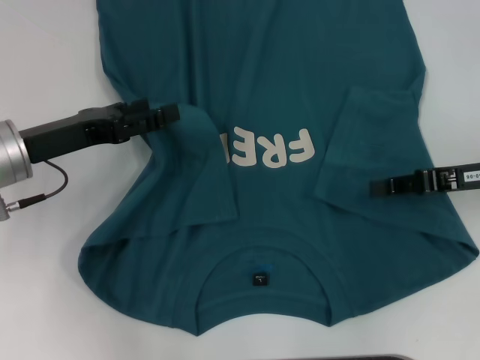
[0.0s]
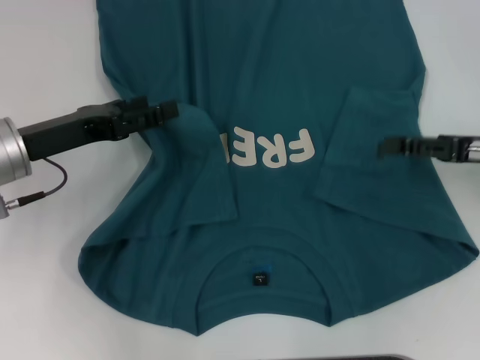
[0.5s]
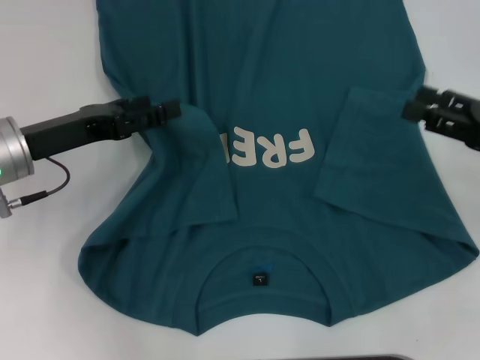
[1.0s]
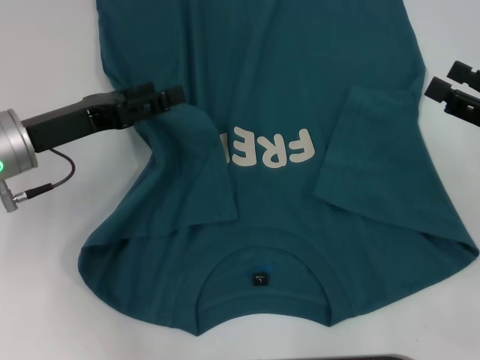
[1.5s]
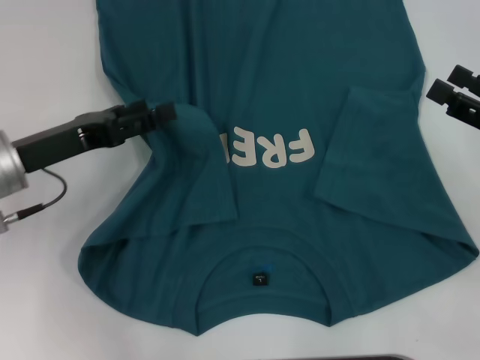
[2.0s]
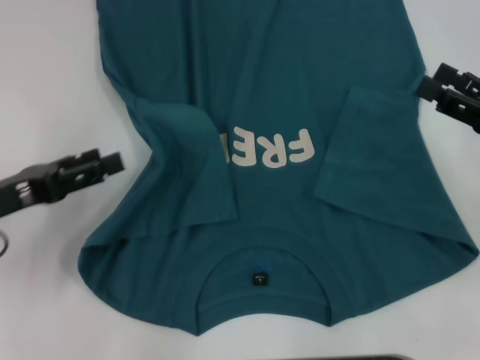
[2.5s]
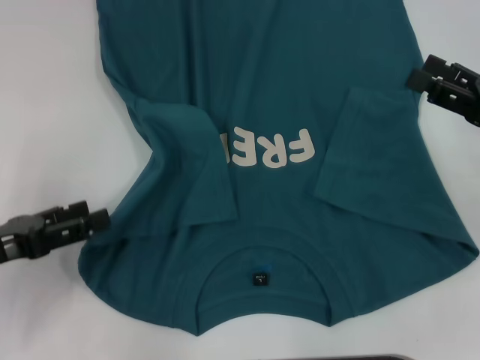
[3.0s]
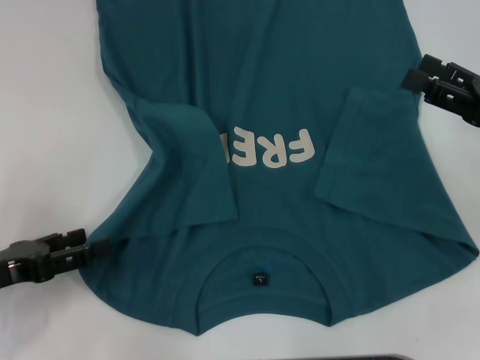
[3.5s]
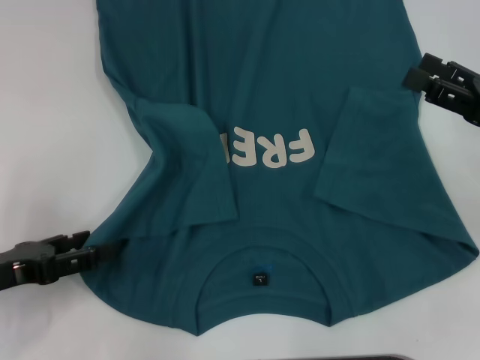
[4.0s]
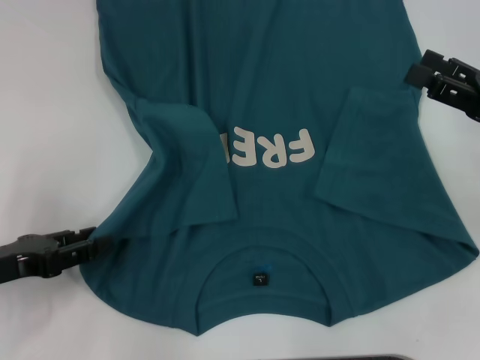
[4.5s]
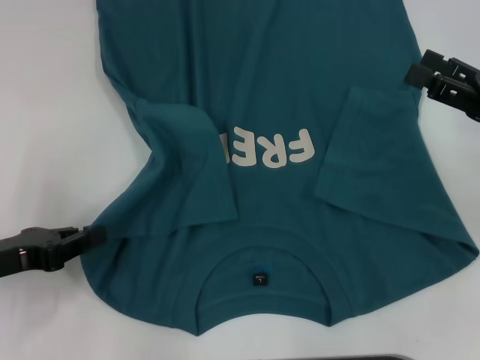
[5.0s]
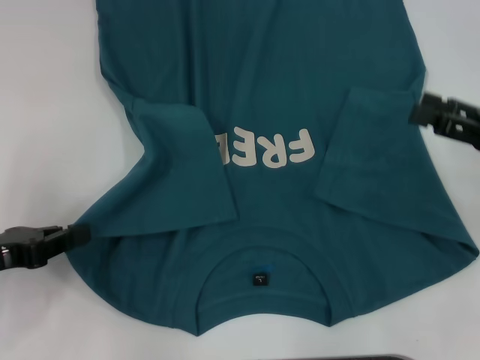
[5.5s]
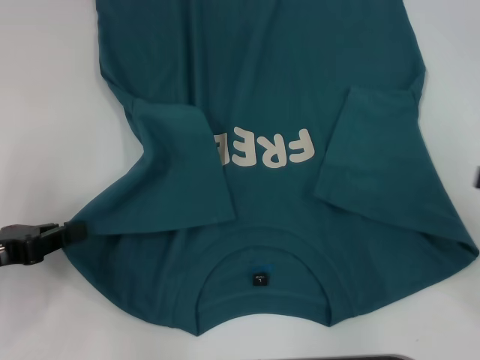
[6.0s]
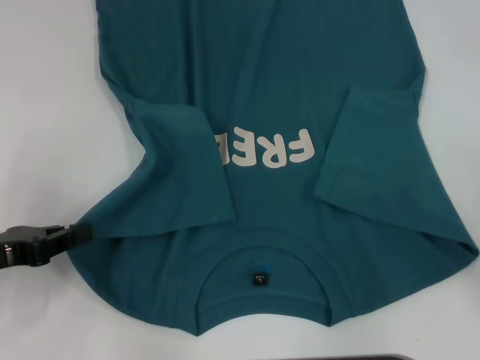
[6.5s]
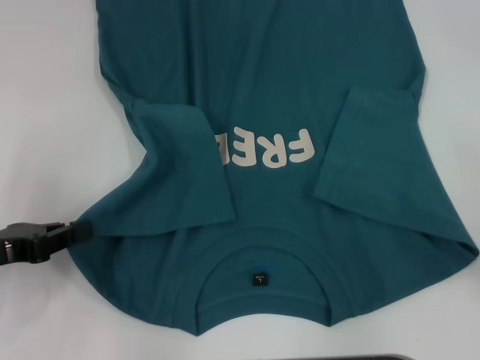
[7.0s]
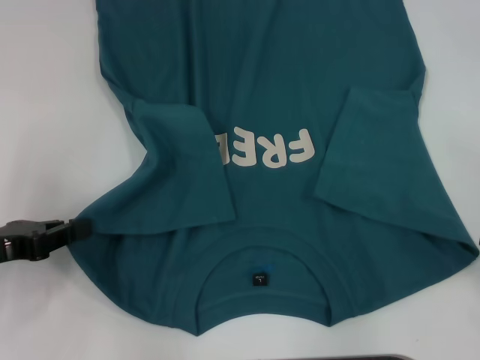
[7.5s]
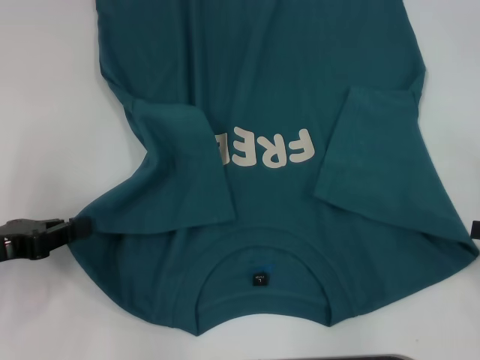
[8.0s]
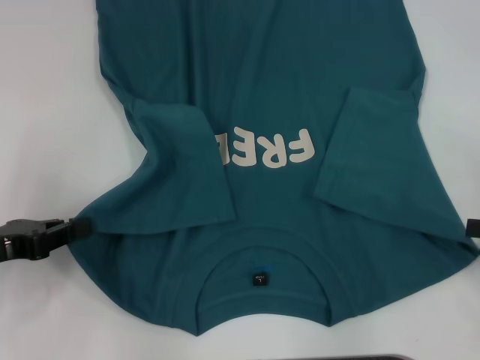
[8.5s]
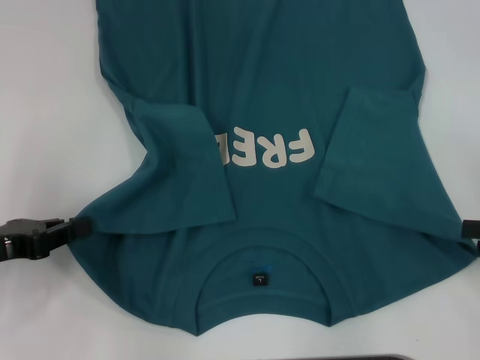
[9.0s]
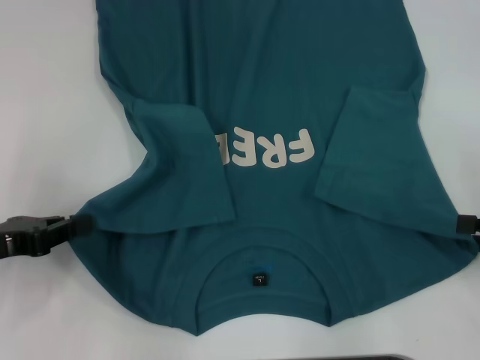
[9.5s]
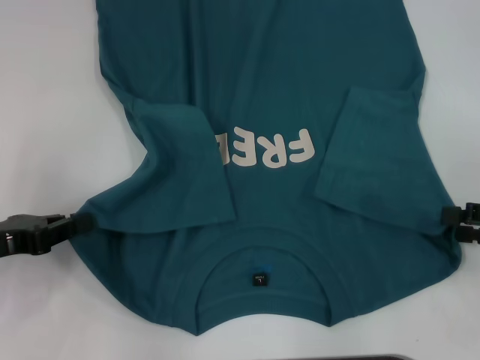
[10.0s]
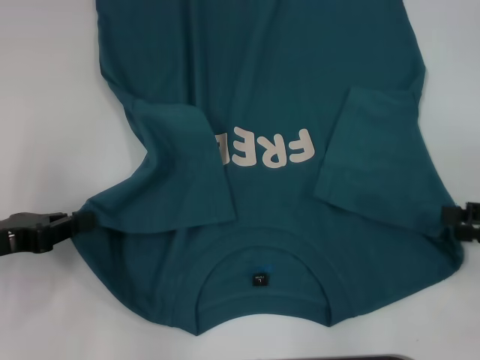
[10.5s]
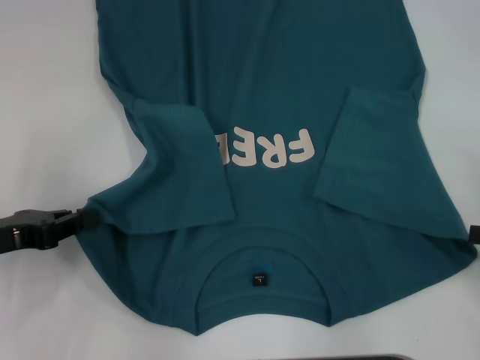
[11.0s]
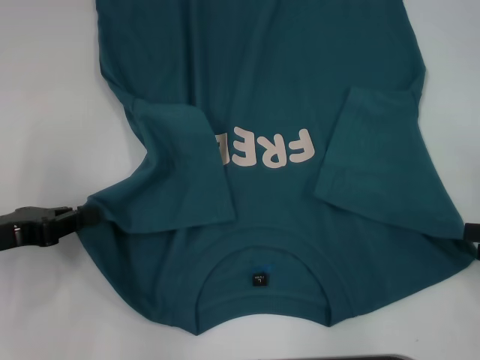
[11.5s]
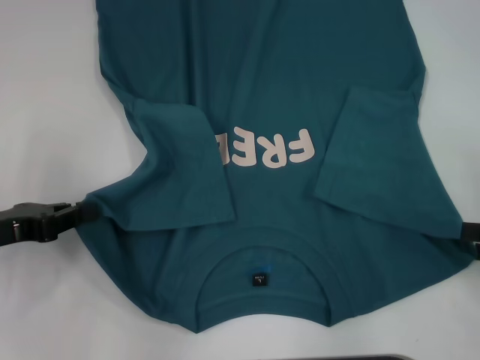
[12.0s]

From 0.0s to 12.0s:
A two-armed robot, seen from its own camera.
Step, from 0.5s to 8.5s: Grab the bottom left corner with your left hand.
From 0.0s to 2.0s: The right gripper moves roughly 5 cm, and opens its fingers.
From 2.0s to 4.0s: The left gripper moves backward and to the left, roughly 10 cm.
From 4.0s to 6.0s: The right gripper goes approximately 10 cm backward and to the right; the left gripper closes its fingers.
From 8.0s to 12.0s: There are only small adjustments of the grippers.

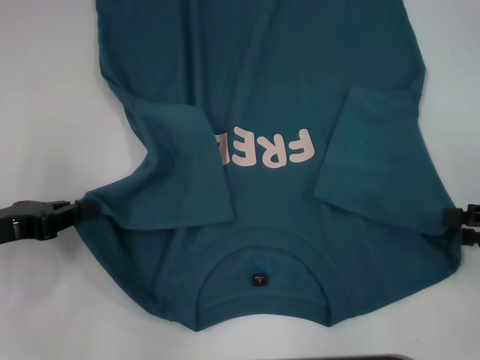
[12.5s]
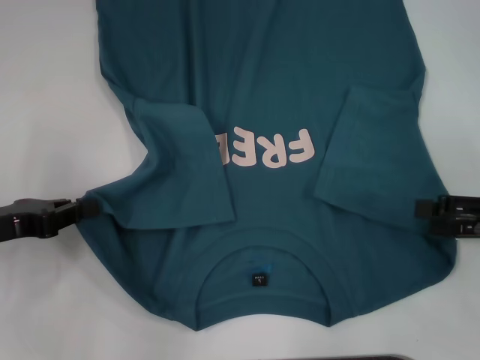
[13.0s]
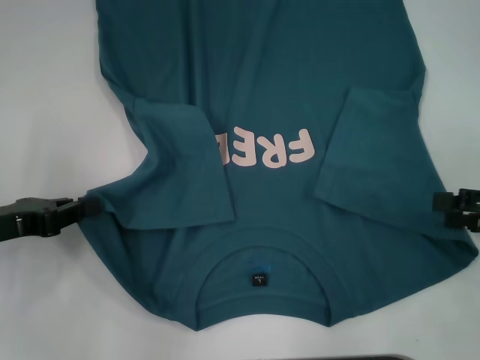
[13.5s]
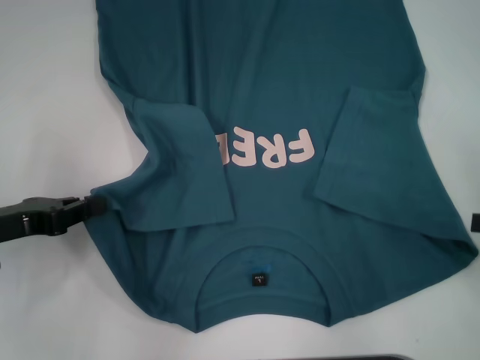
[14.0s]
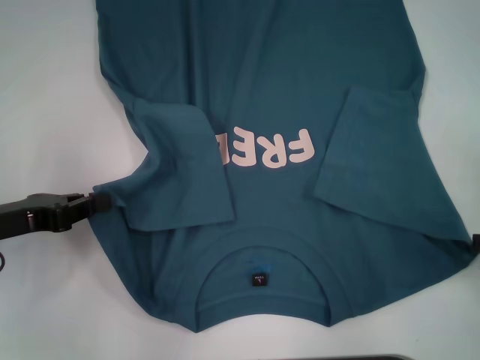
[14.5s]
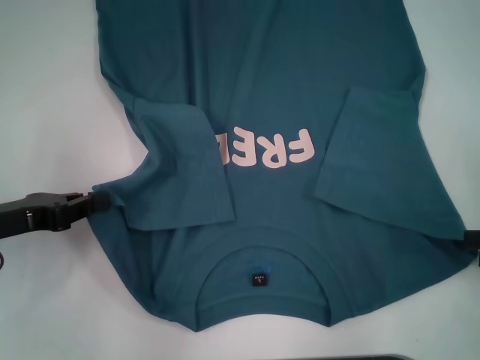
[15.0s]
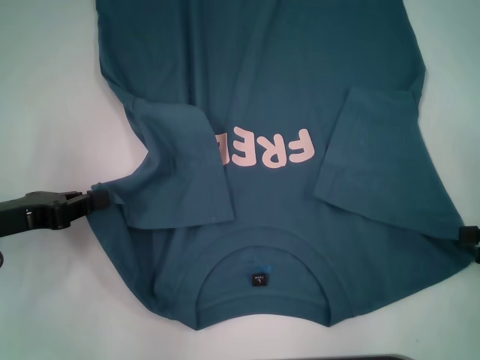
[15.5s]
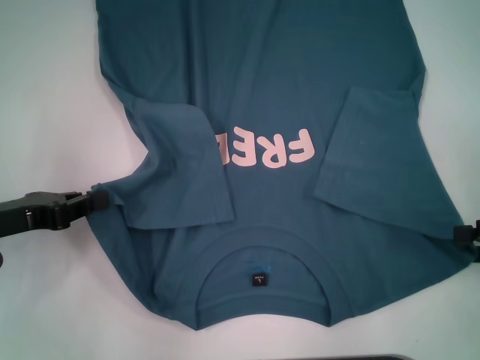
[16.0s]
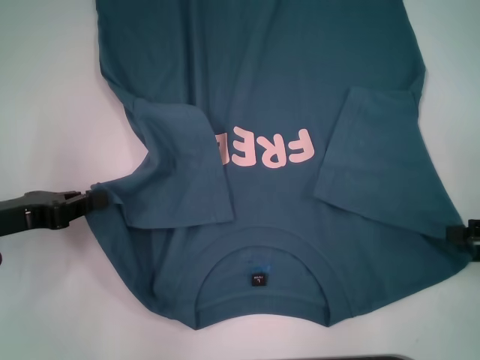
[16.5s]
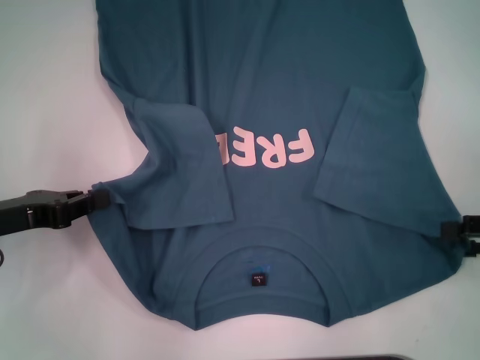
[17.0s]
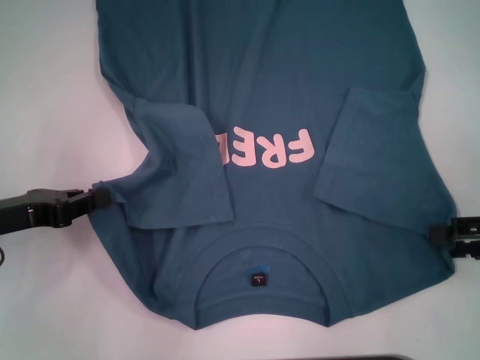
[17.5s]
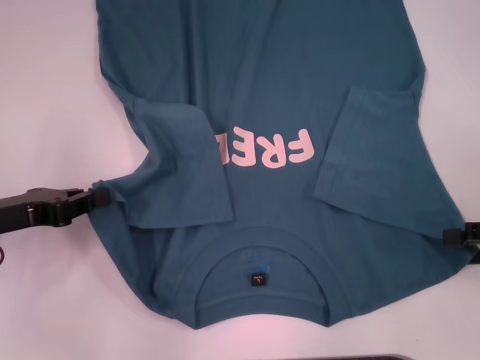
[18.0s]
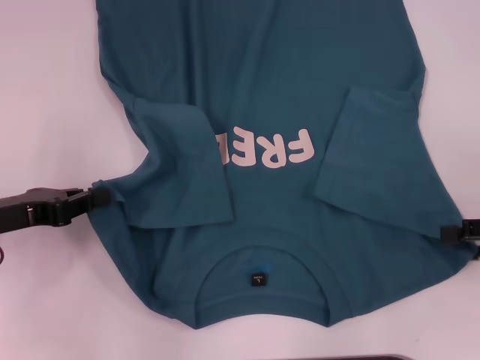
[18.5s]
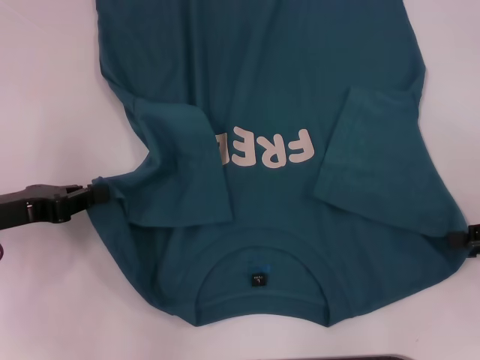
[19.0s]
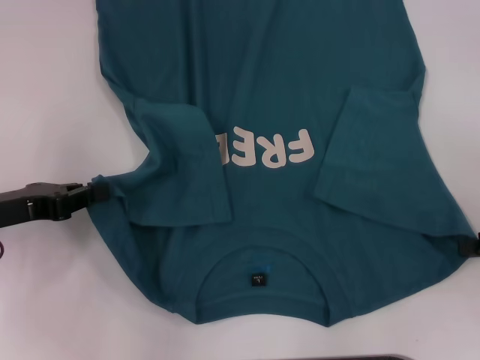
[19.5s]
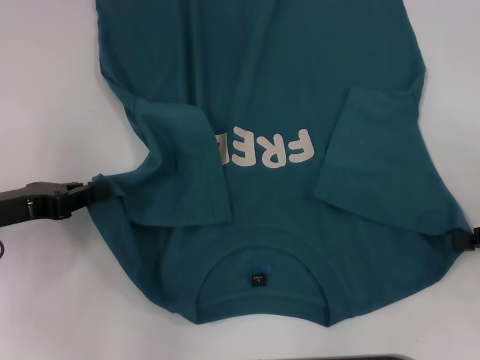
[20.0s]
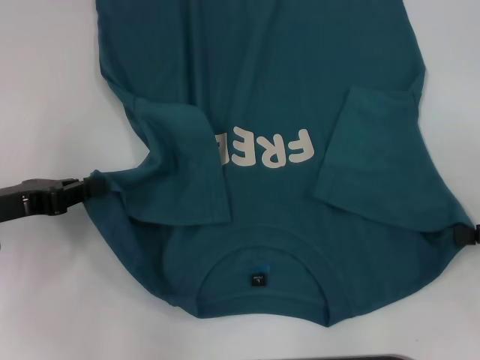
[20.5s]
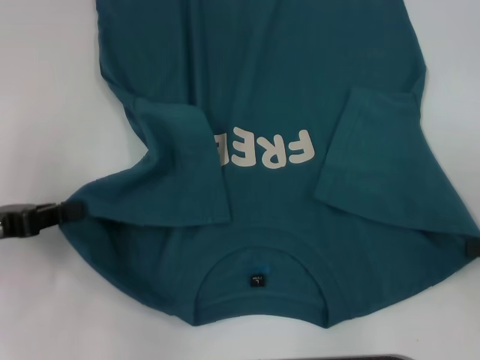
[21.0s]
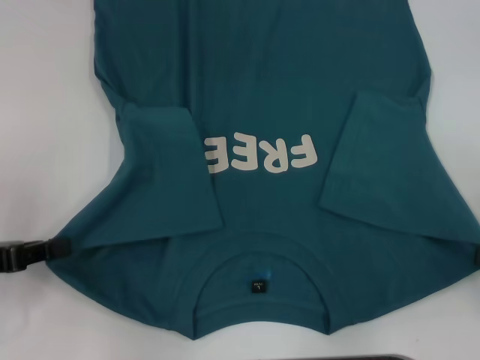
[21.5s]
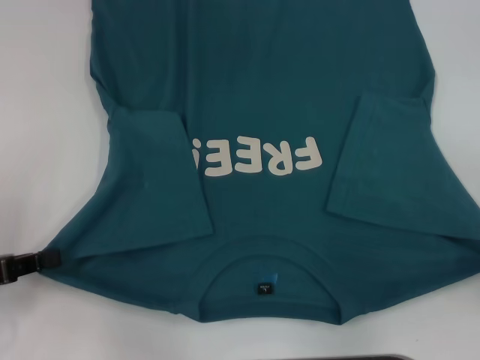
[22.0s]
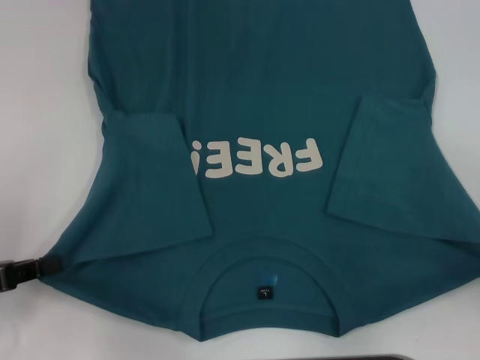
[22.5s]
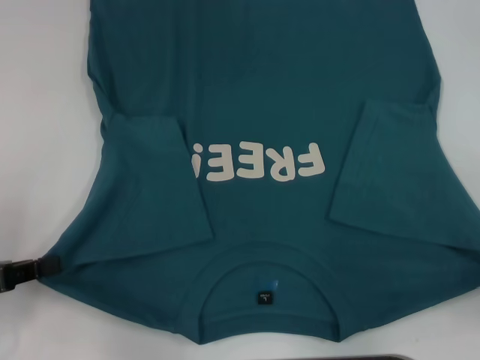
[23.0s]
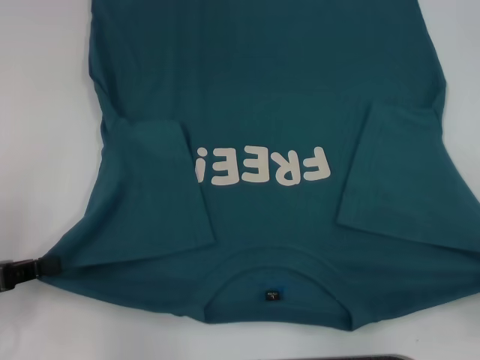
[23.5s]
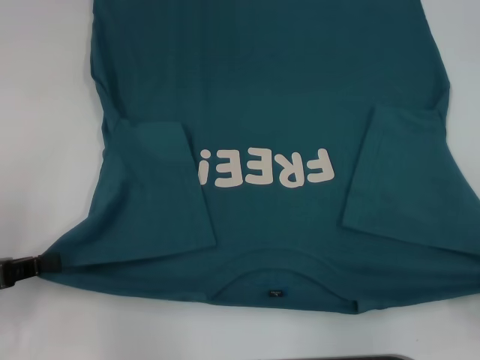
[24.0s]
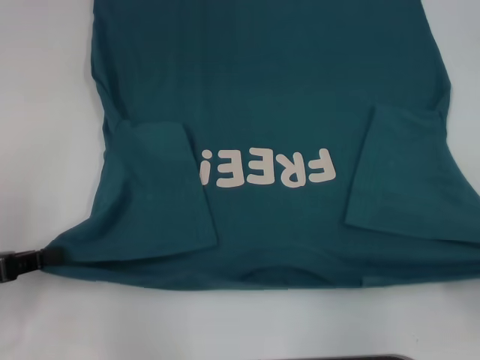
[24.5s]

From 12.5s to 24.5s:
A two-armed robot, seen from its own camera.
Step, from 12.5s to 20.0s: Grab the bottom right corner with your right hand.
From 12.5s to 18.5s: There are only small adjustments of the grippers.
From 18.5s to 20.5s: The right gripper closes up.
From 20.5s to 22.5s: The two grippers go roughly 5 cm backward.
From 22.5s to 24.5s: There are only small adjustments of the grippers.

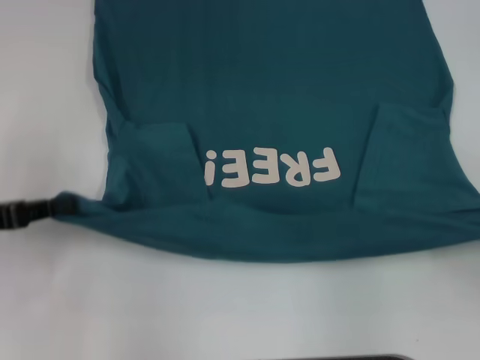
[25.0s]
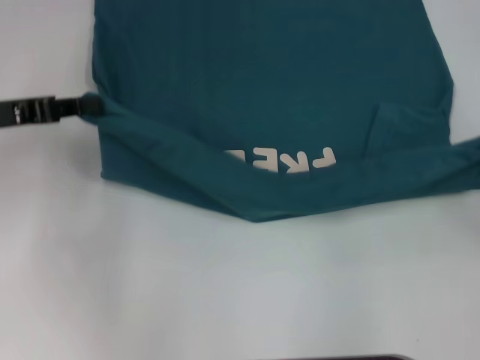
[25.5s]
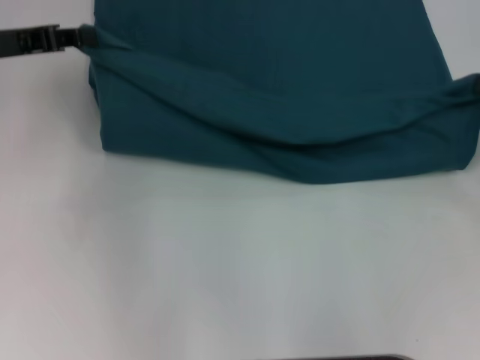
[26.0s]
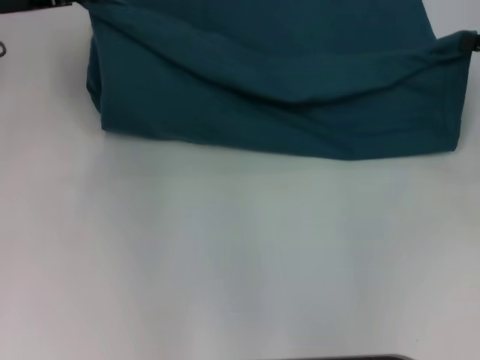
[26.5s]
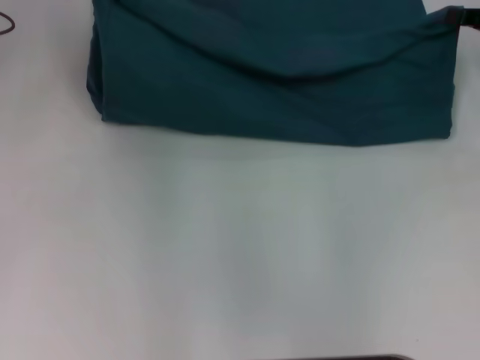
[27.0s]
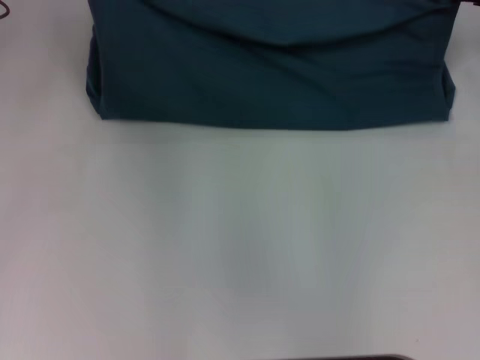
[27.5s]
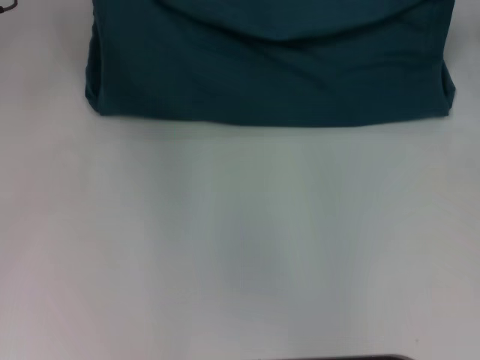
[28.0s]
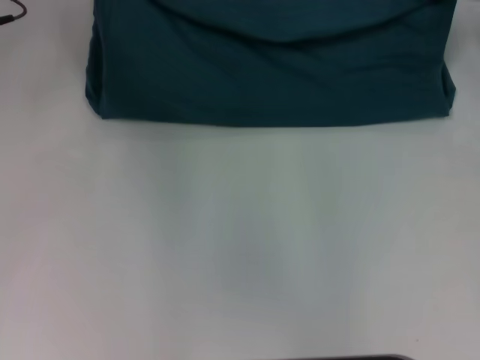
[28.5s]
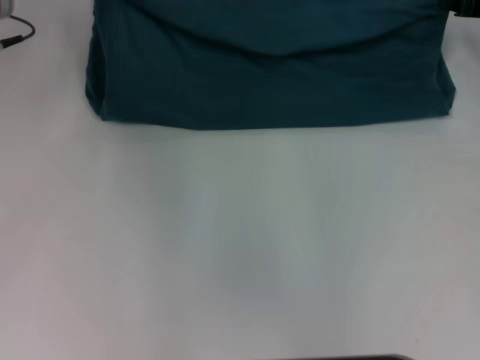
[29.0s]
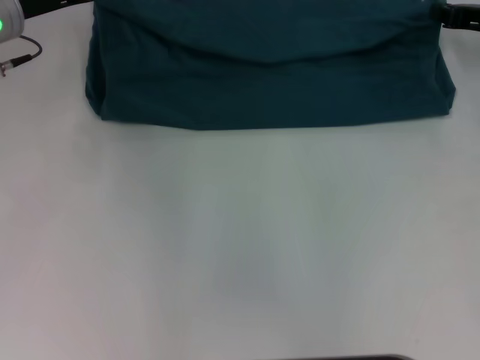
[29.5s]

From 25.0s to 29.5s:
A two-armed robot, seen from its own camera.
From 25.0s to 27.0s: The left gripper goes approximately 20 cm forward and upward; the right gripper travels forward by approximately 25 cm.
From 27.0s to 29.5s: The grippers move only a little.
